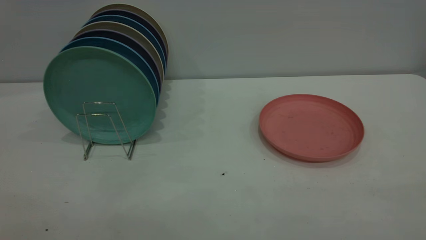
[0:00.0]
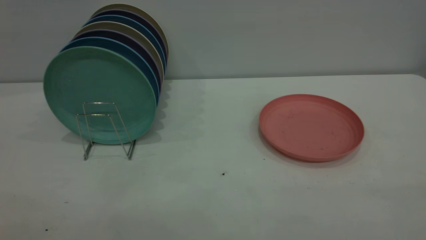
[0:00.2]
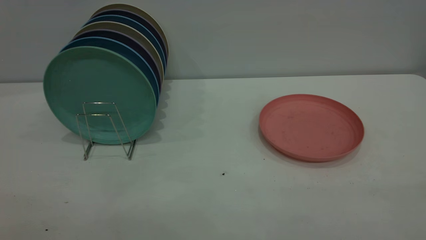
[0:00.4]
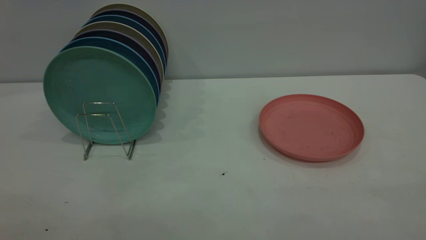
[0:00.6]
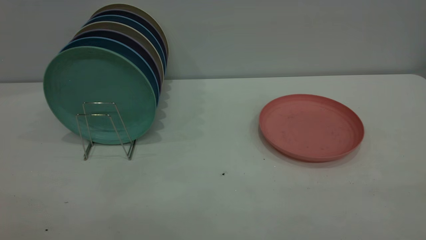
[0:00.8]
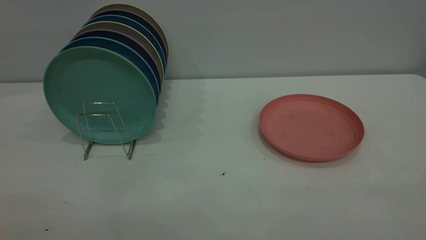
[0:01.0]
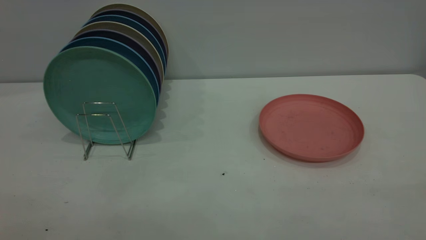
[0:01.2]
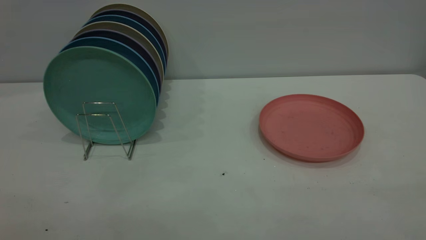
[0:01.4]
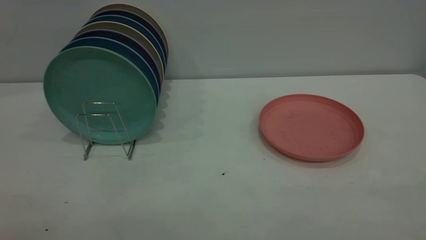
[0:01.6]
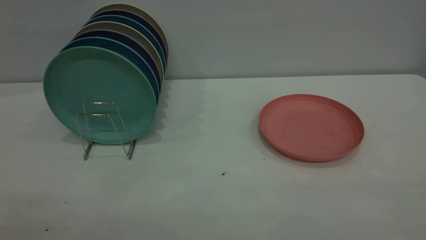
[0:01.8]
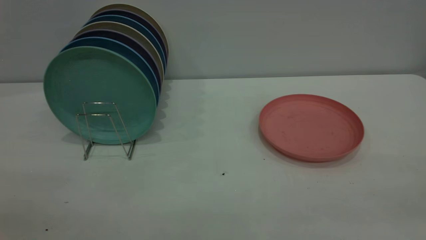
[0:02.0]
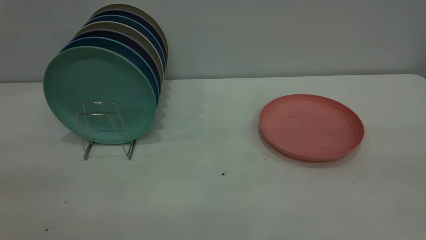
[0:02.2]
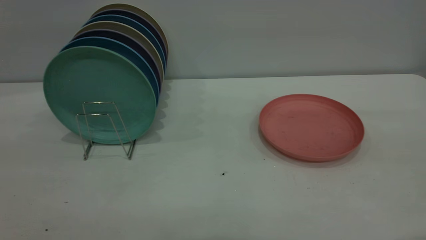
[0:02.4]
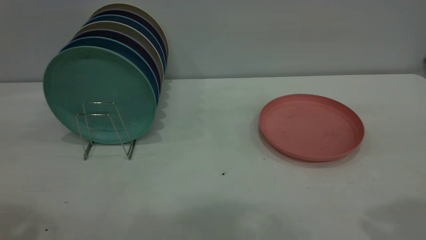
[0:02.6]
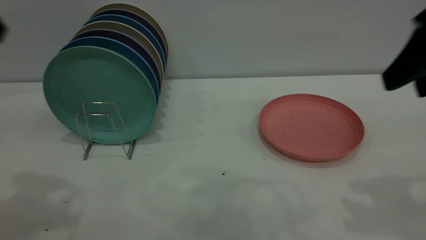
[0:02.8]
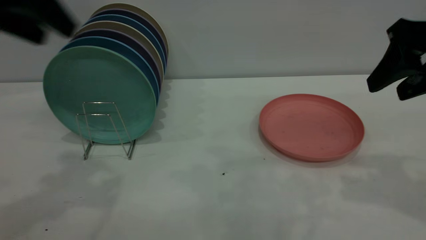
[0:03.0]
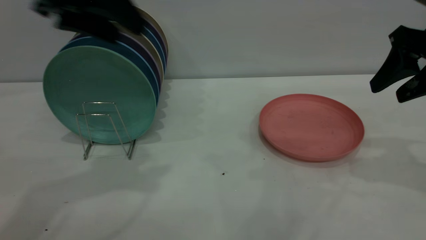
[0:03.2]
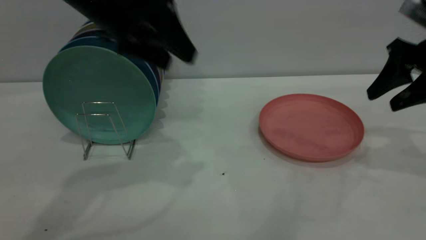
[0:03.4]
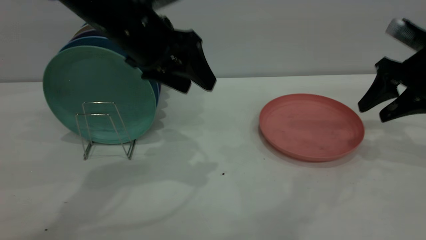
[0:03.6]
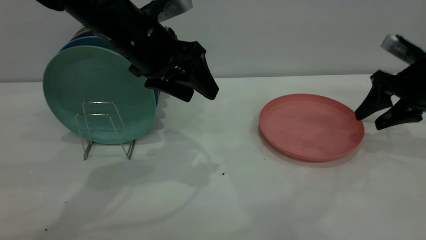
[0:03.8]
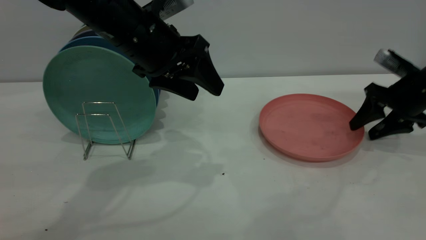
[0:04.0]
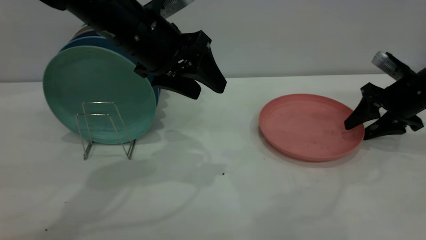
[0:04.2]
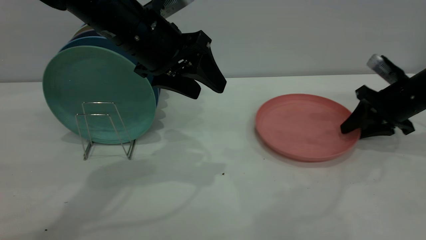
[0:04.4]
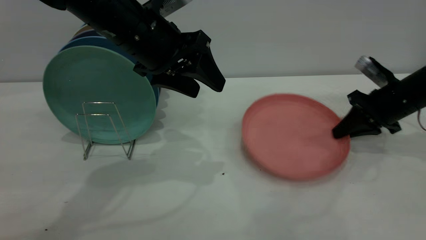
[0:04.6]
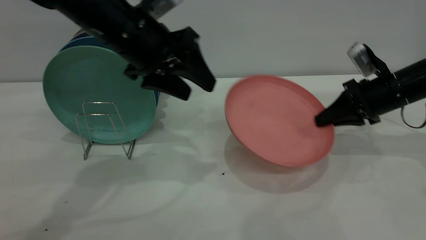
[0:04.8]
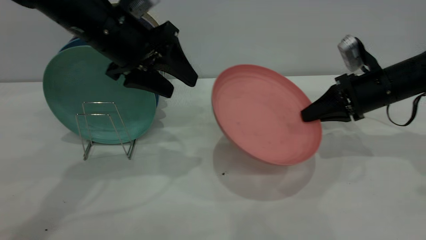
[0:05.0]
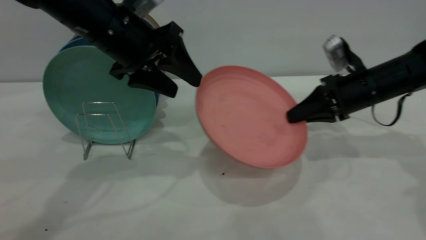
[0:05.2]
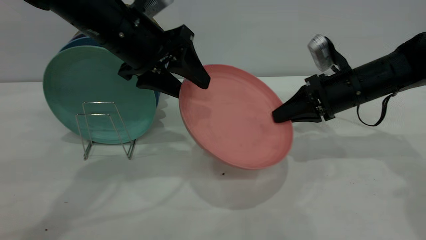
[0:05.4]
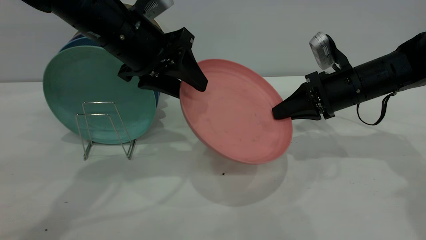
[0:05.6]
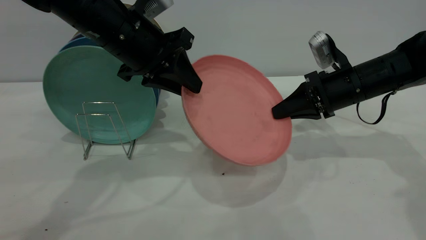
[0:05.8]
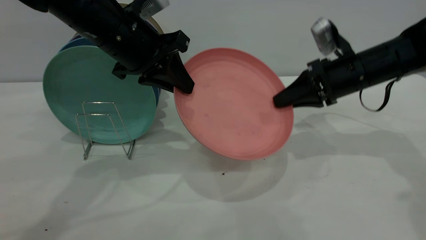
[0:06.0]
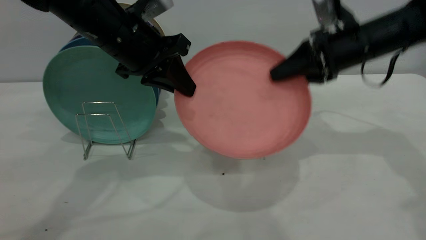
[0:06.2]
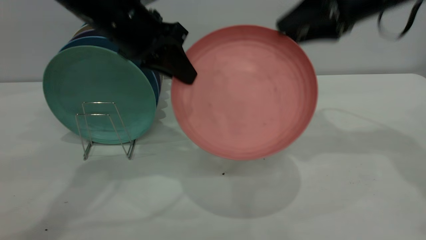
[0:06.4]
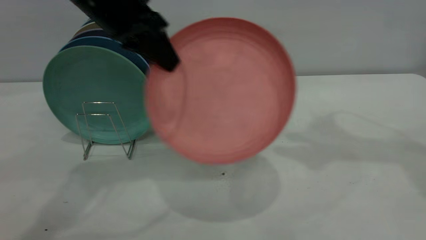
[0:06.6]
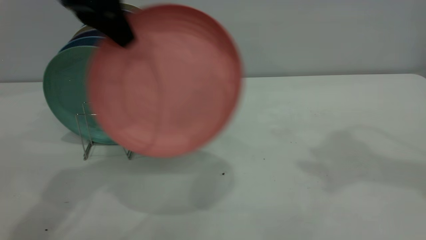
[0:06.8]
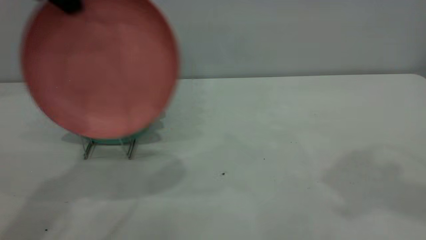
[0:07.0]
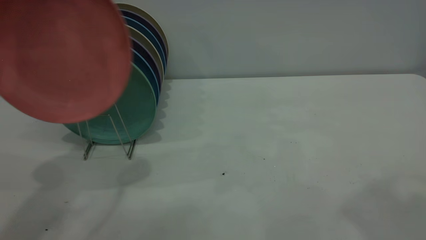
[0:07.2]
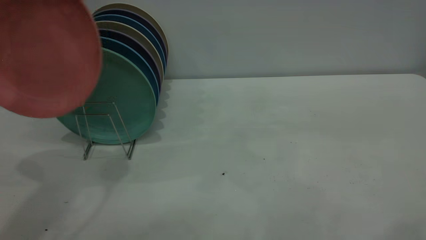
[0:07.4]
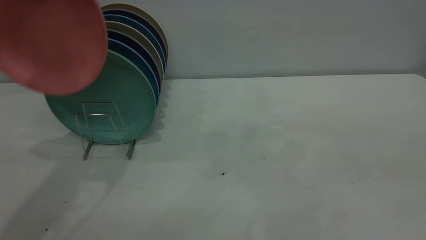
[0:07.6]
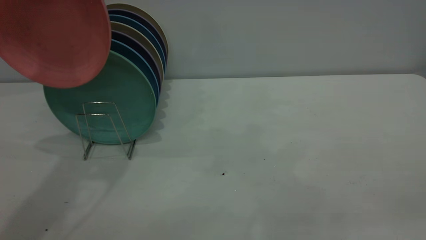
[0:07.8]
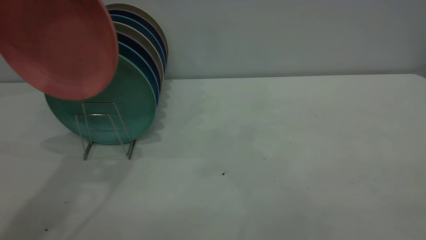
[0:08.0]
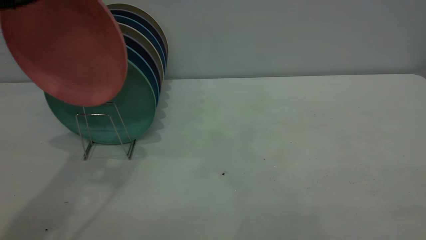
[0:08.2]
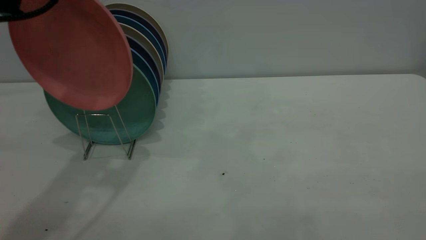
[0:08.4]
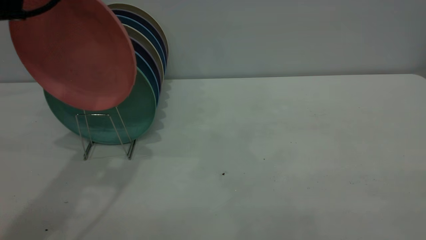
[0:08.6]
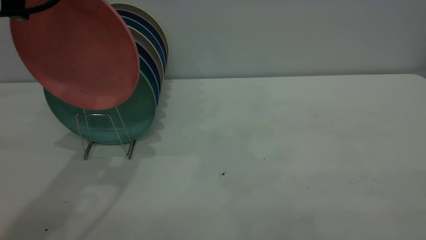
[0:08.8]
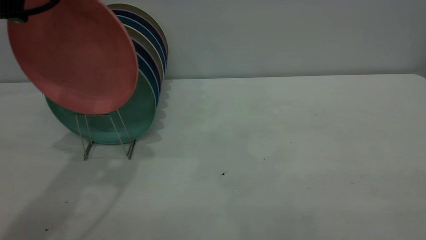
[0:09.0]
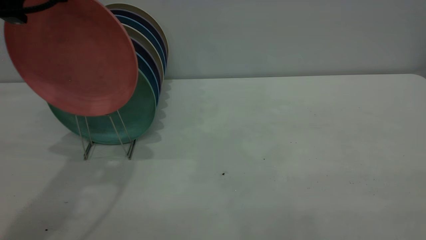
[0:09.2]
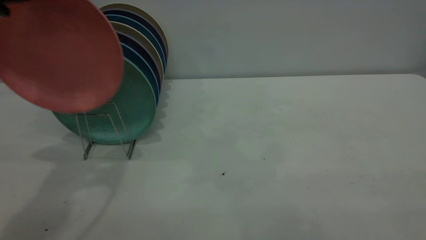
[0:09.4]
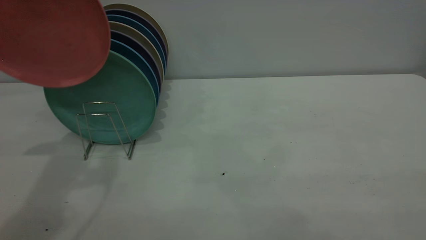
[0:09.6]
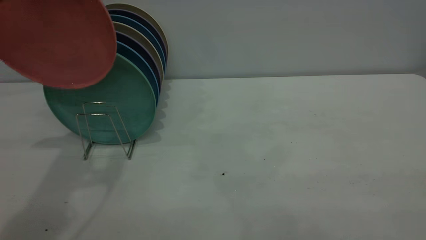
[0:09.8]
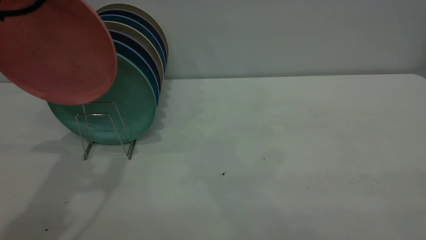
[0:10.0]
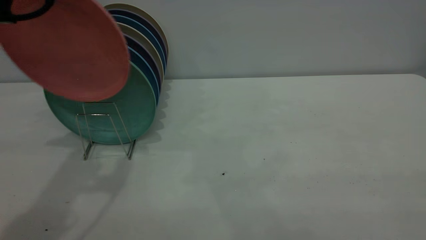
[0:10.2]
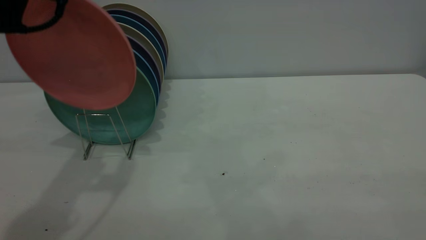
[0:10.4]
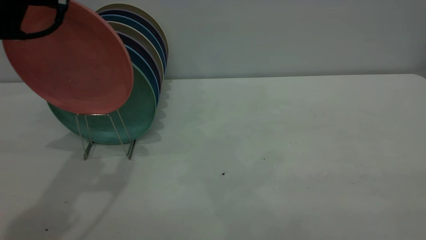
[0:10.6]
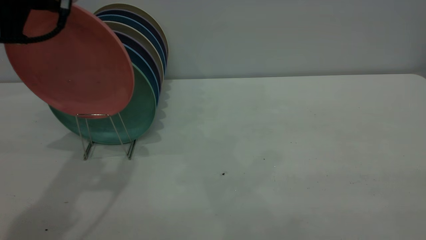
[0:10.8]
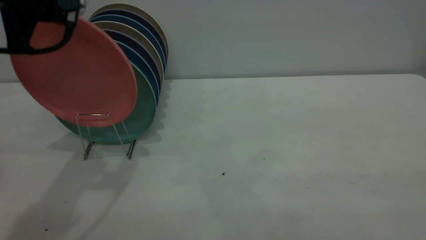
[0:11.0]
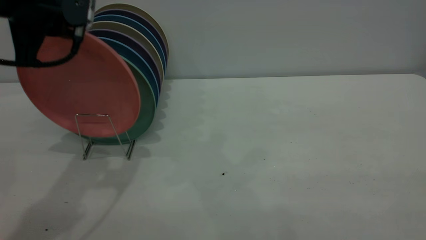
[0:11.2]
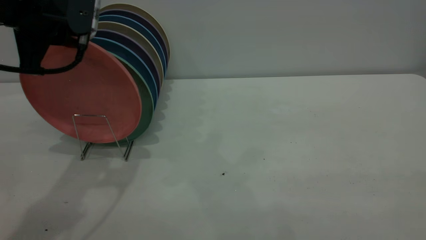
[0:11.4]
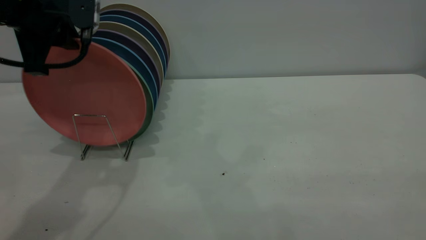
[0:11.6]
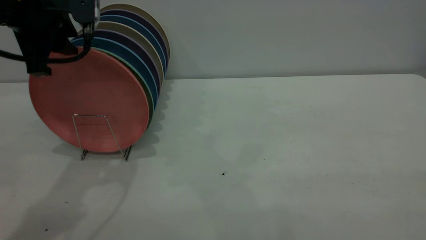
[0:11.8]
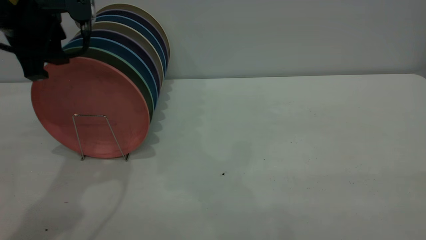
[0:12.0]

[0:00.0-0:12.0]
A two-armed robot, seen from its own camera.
Task of the whole recording: the right gripper grasp the pink plate, the right gripper pass the pink plate to the left gripper, and the left gripper place the pink plate on the plate rack.
Step, 0:00.0 to 0:04.6: Pick up the plate with the right gripper.
Step, 0:04.8 to 0:06.4: Pass the plate from the right gripper to the left gripper.
0:00.0 to 0:01.6: Both grippers stay about where they are.
0:01.6 to 0:03.0: The grippers both shift forward by roughly 35 cm. The right gripper opens up.
0:03.0 to 0:04.4: The left gripper is displaced to the right, downward and forward by roughly 20 cm; the right gripper moves downward and forward, approximately 20 cm, and closes its fingers.
0:04.4 to 0:06.0: The right gripper is displaced to the left and upward by about 10 cm. Meanwhile the left gripper closes up.
0:06.0 to 0:07.6: The right gripper moves backward and upward, approximately 40 cm, and opens up. Meanwhile the left gripper travels upward and to the left by approximately 20 cm.
0:07.6 to 0:09.0: The left gripper is displaced downward by some 5 cm.
0:09.0 to 0:10.4: The grippers move only a little.
0:10.4 to 0:12.0: The left gripper goes approximately 5 cm downward, and opens.

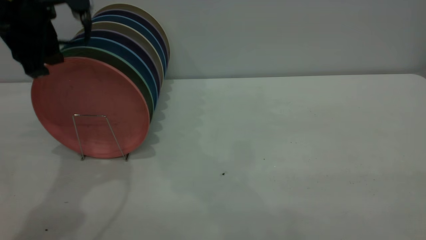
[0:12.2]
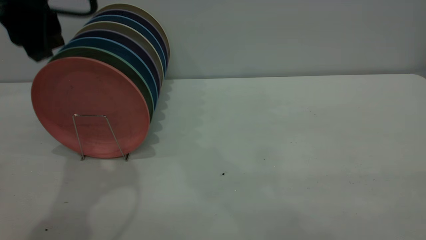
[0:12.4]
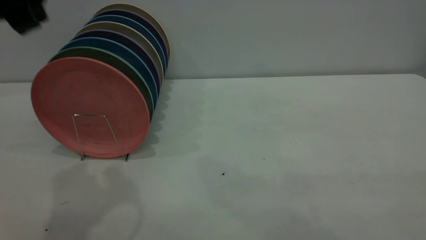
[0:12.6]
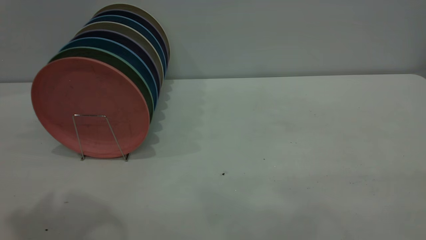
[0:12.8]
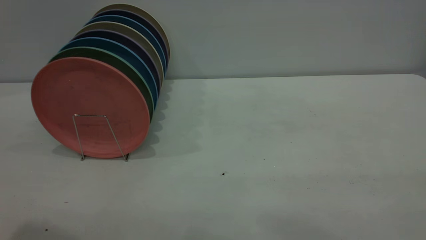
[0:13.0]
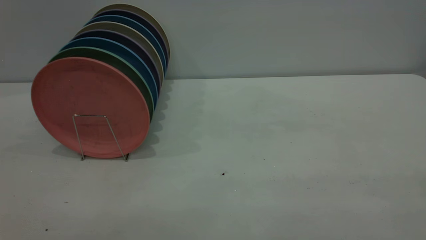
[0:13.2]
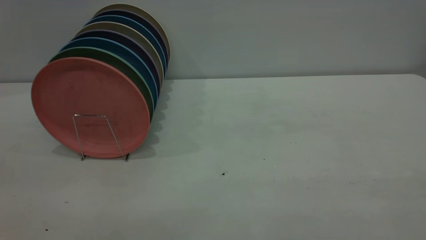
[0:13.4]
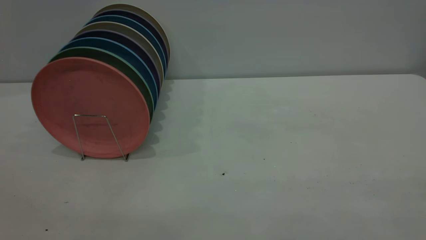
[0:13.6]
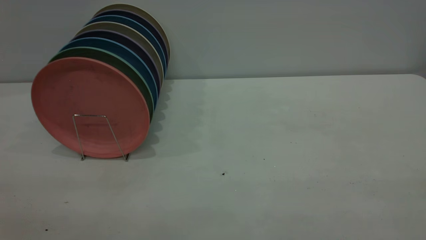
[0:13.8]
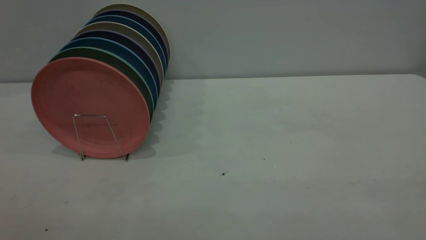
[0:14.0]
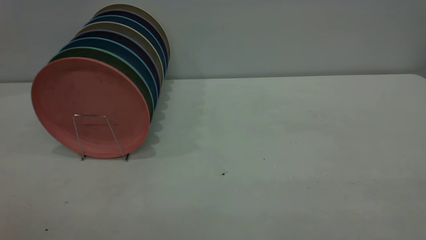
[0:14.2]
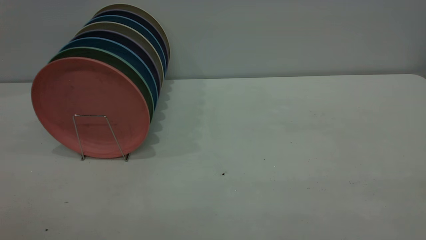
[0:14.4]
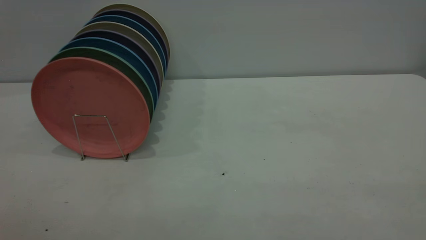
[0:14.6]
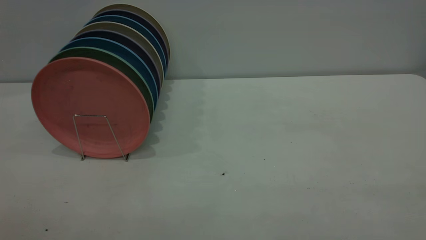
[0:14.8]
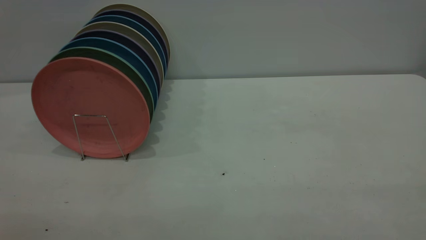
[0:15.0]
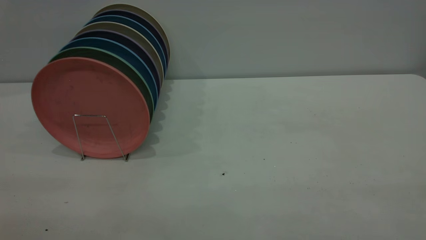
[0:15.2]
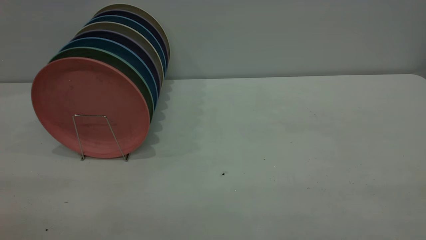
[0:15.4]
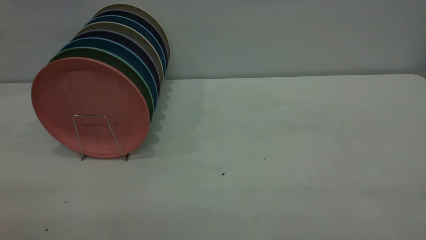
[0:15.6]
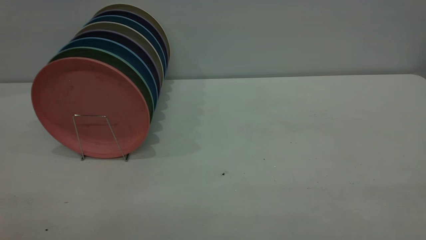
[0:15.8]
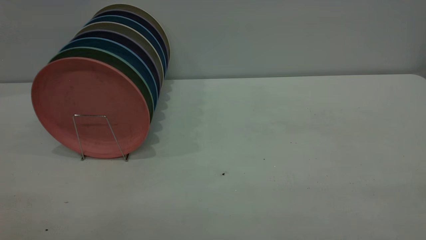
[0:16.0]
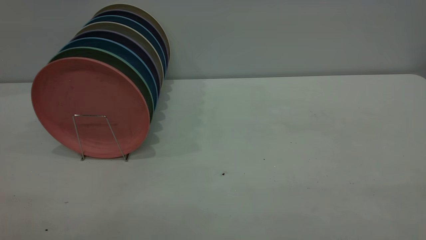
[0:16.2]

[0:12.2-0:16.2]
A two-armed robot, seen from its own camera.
Task of the whole recording: the right gripper grasp the pink plate, the right gripper pass the pink plate to the left gripper, and the left gripper place the pink plate on the plate rack.
0:12.2 to 0:13.6: The left gripper moves backward, about 25 cm.
